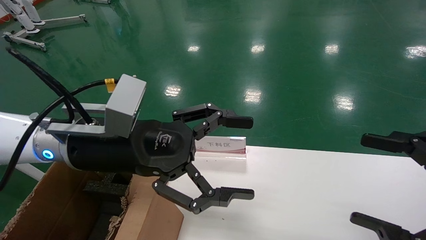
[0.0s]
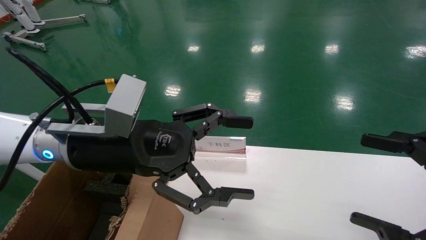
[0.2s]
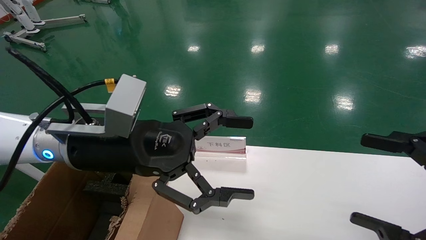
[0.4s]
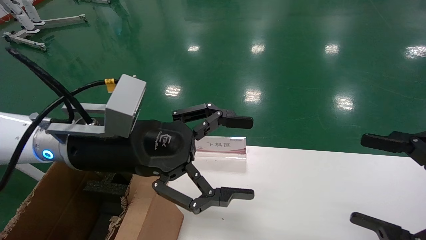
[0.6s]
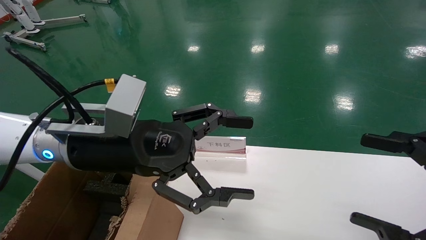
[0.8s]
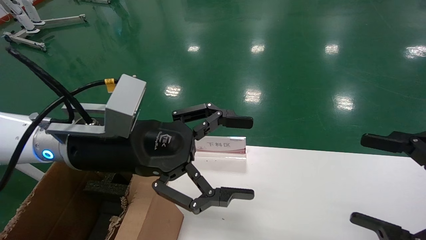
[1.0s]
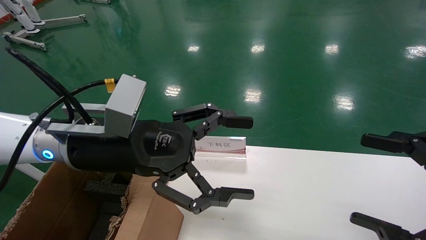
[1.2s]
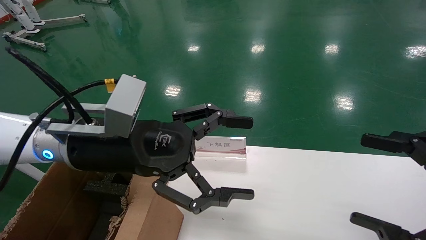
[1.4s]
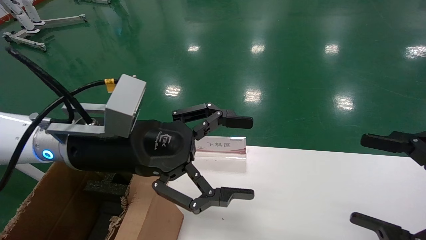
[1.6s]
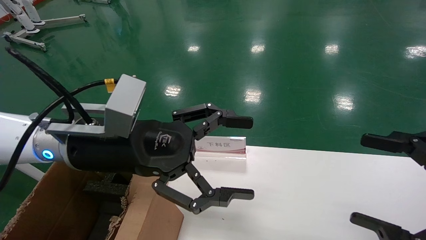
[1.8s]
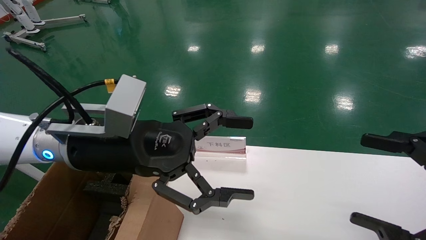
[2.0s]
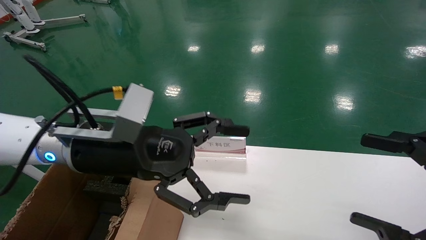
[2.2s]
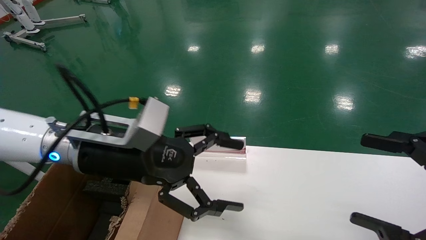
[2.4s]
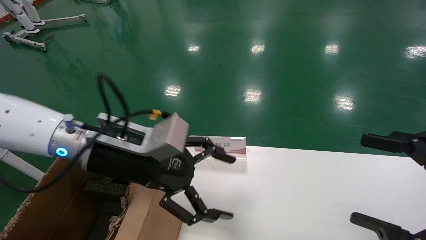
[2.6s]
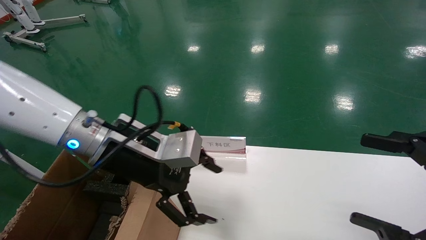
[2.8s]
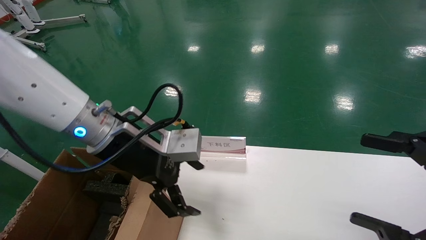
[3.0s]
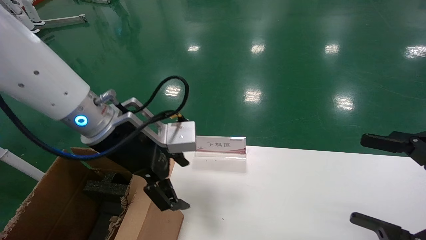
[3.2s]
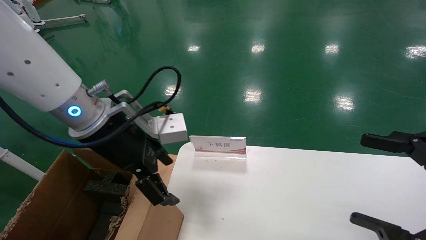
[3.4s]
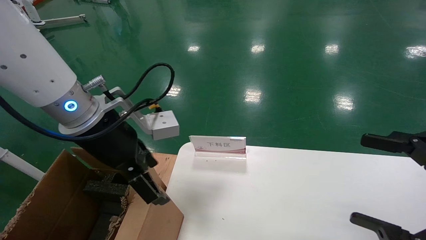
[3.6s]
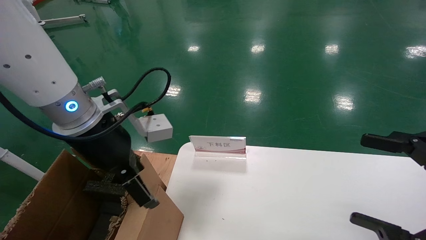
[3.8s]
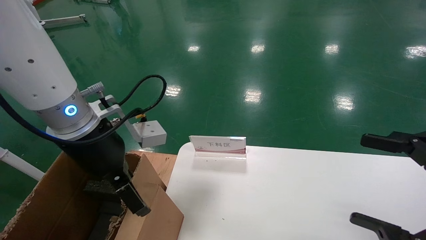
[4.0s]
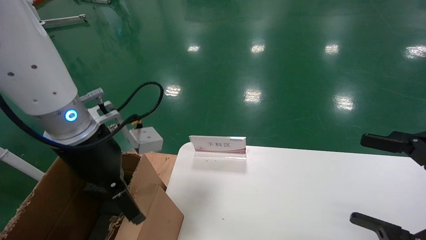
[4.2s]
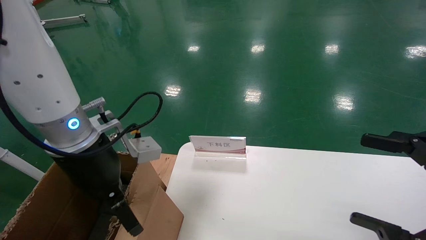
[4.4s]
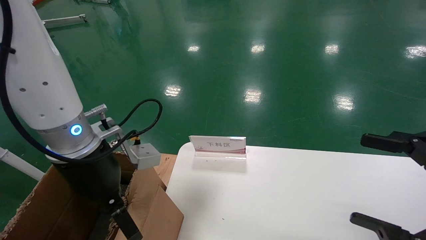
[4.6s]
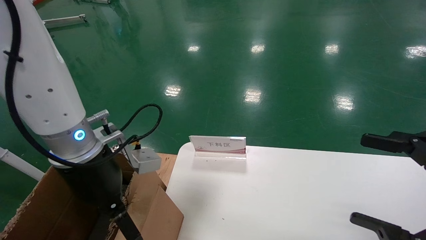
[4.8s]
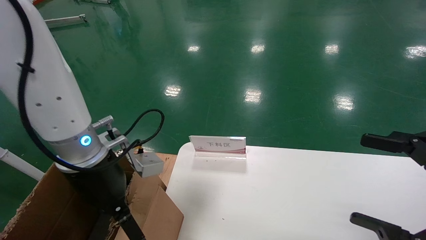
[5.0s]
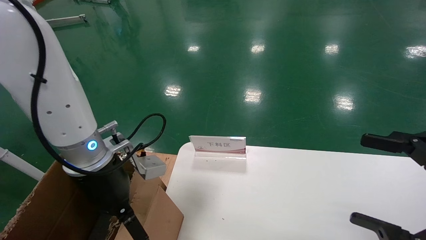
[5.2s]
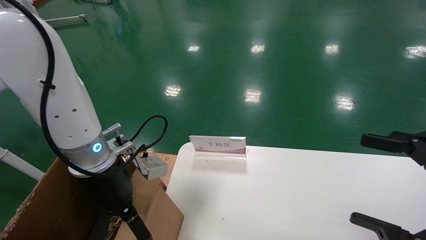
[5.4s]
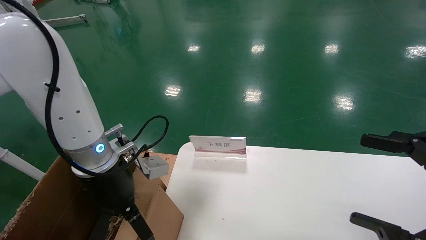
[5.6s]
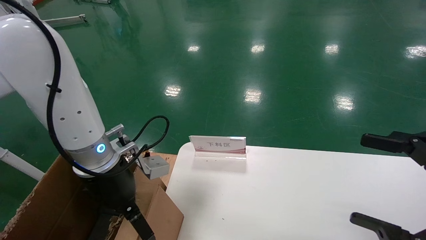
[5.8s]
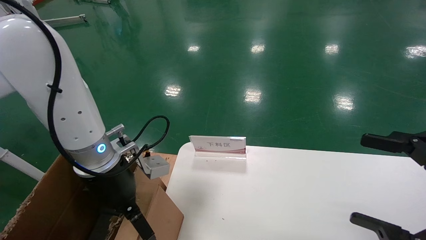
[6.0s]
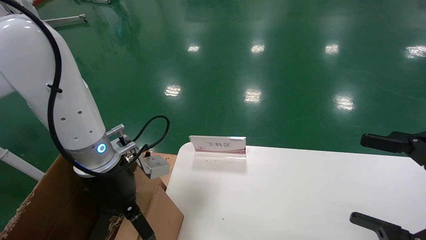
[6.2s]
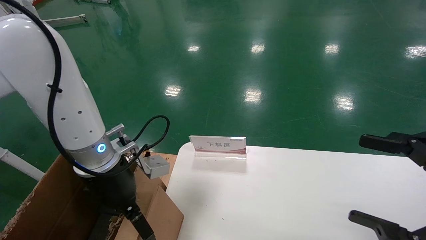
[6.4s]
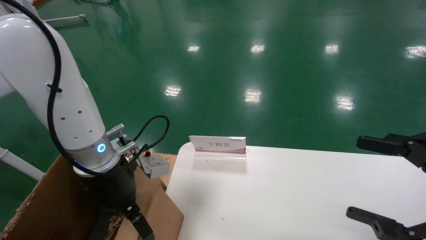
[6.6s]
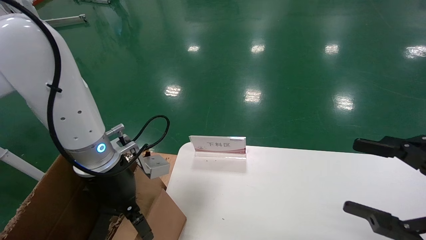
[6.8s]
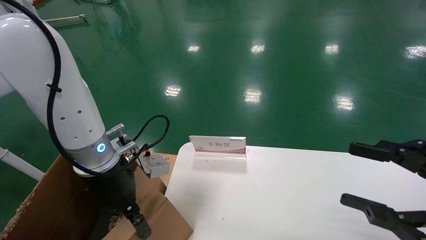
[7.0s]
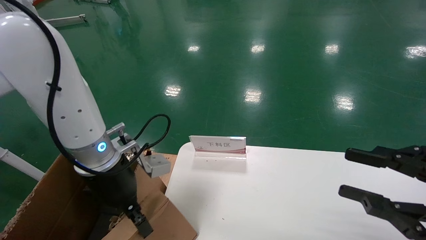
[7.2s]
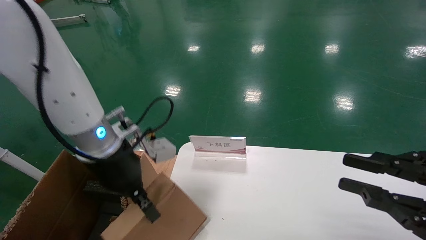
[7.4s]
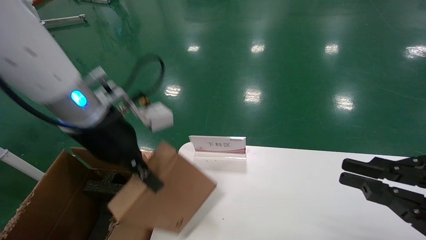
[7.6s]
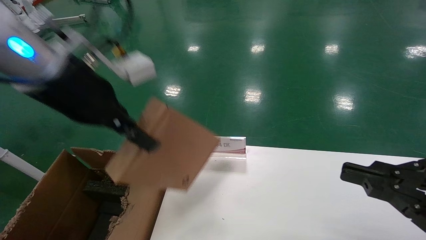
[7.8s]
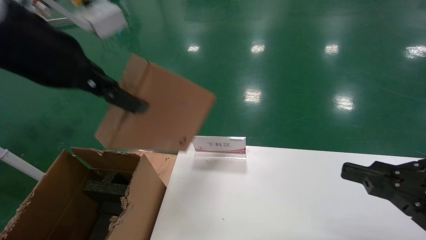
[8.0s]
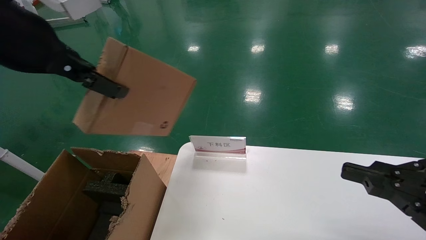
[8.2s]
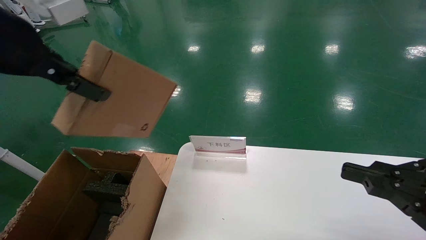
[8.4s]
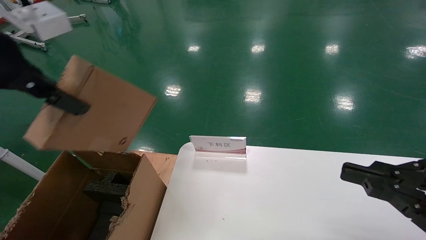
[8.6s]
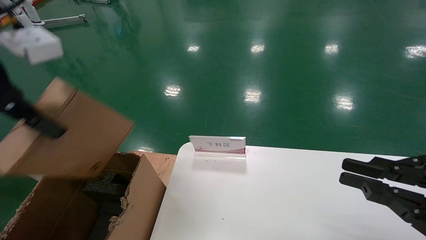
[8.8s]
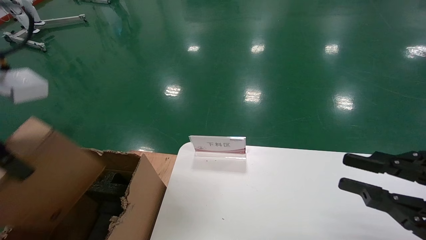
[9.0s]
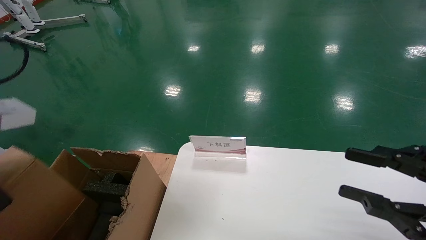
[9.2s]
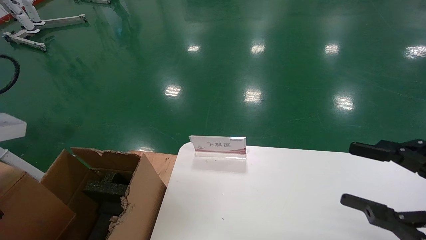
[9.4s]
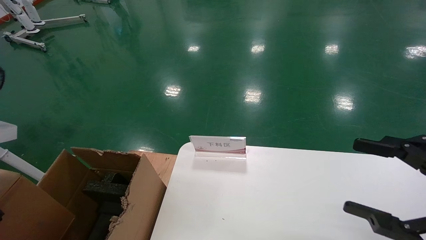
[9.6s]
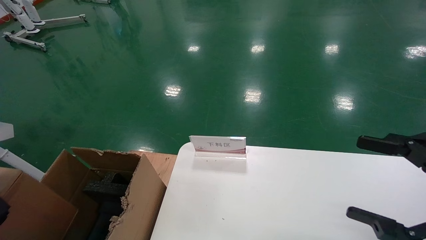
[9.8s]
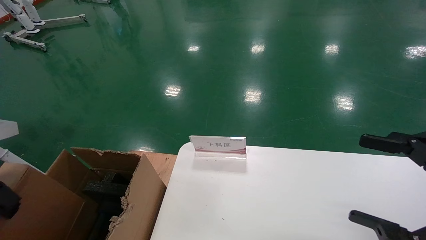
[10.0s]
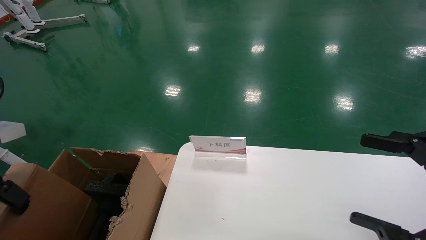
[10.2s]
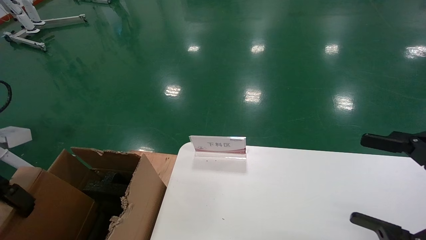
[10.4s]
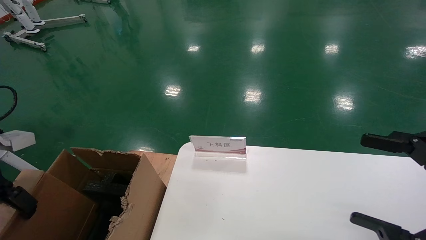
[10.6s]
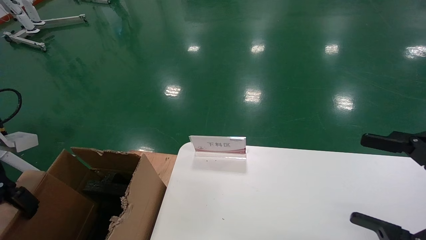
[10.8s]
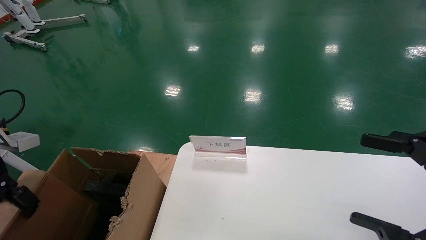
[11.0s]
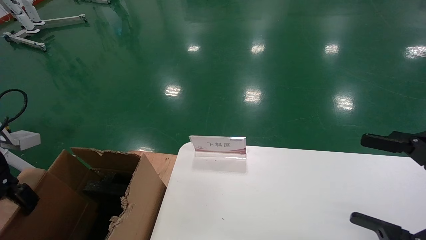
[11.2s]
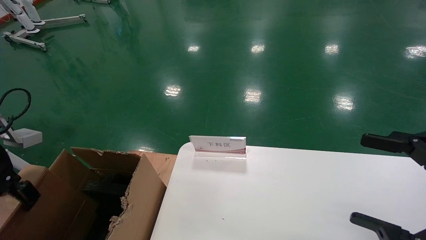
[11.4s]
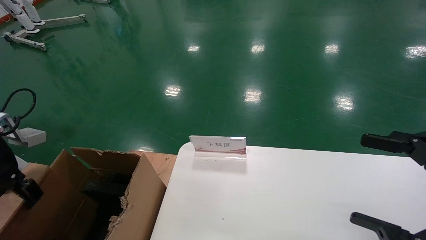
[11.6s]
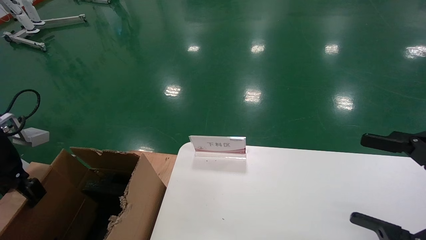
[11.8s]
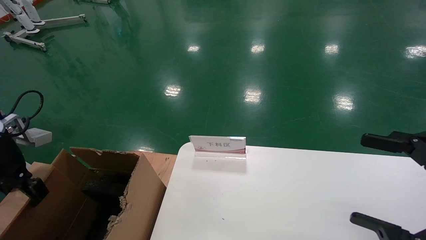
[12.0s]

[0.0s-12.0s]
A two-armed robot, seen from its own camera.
Task of the whole recording: pick up the small cardboard box and load it into the large cardboard box.
Step, 0.0s to 6.8s: Grasp the paper box.
0.0s to 1.6s: Both grippers stay put.
4.4s to 6.0s: The left gripper moves downward, approximately 5 cm.
6.0s to 7.6s: The left gripper is displaced upward by approximately 10 cm, and closes its fingers. The right gripper closes its fingers.
7.6s to 9.0s: The left gripper moves backward, to the left and upward, about 15 cm.
9.0s to 10.4s: The right gripper opens, while the left gripper goes roughly 15 cm to the left and downward.
10.4s to 12.0s: The left gripper shifts roughly 5 cm forward.

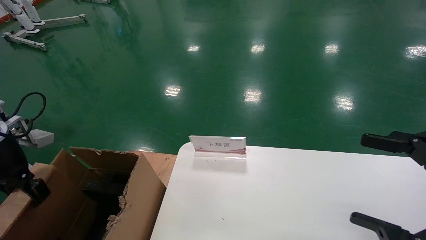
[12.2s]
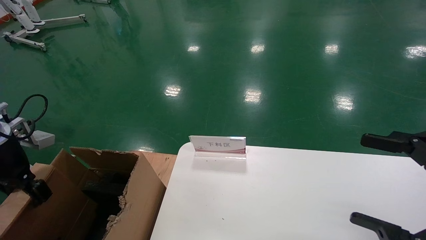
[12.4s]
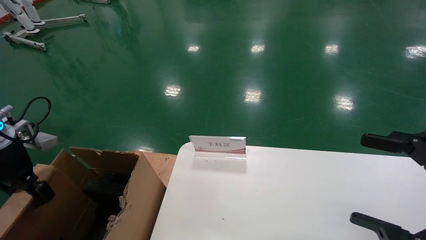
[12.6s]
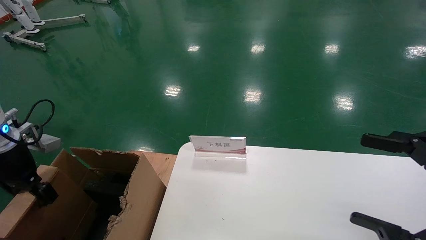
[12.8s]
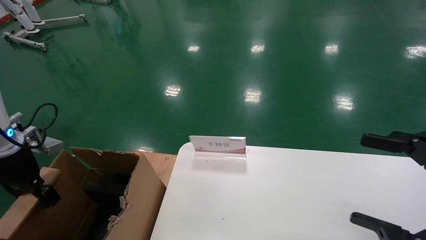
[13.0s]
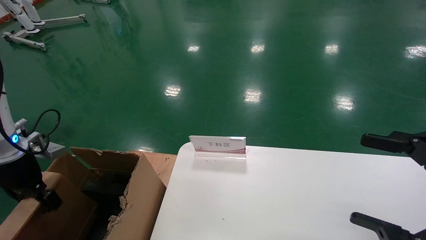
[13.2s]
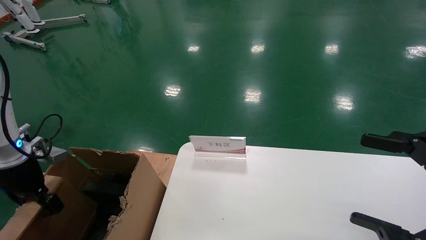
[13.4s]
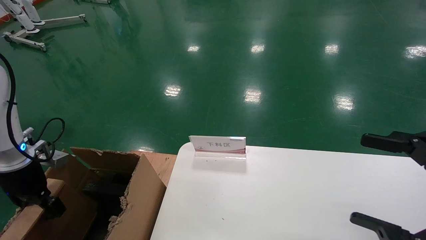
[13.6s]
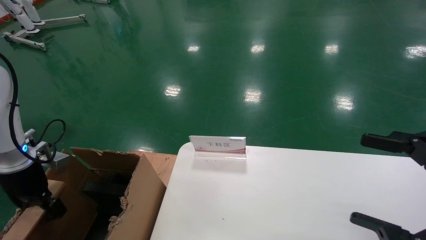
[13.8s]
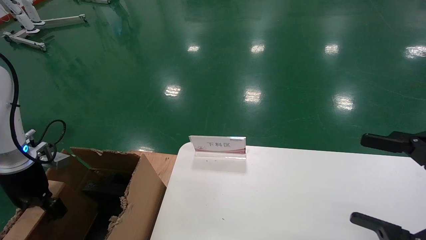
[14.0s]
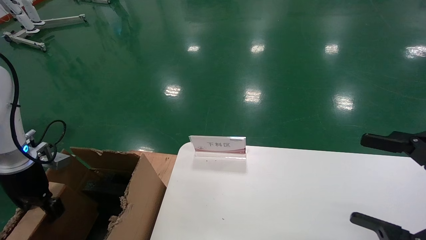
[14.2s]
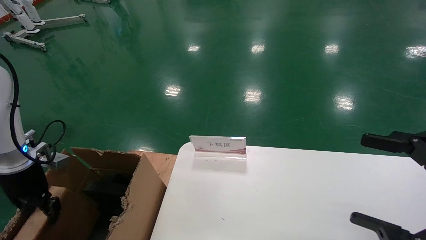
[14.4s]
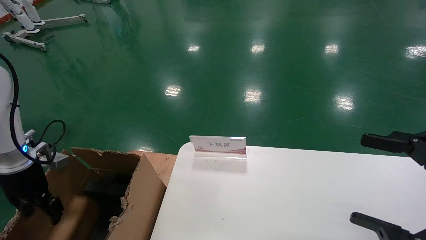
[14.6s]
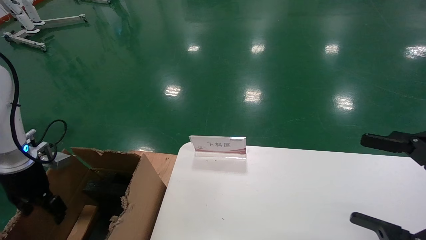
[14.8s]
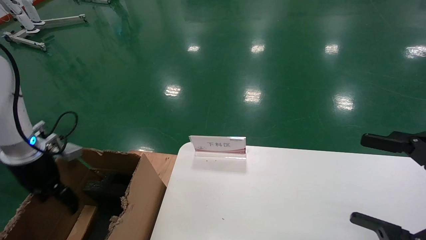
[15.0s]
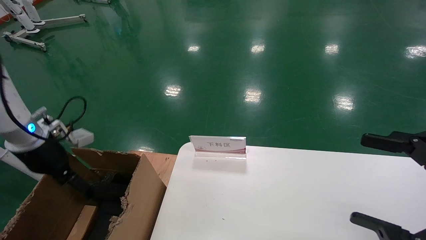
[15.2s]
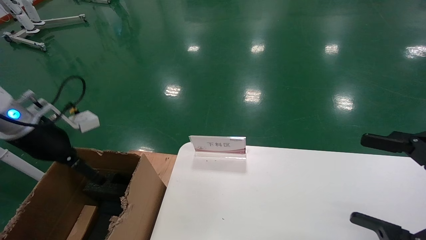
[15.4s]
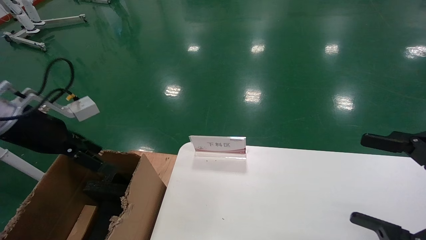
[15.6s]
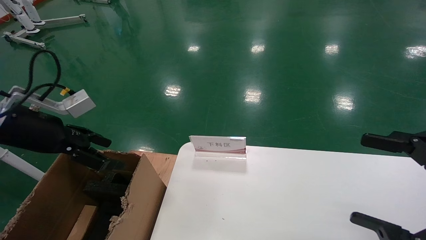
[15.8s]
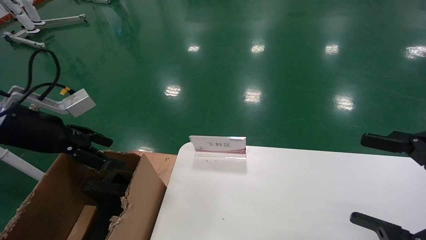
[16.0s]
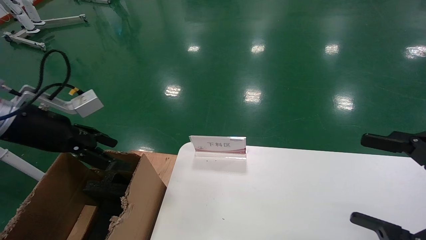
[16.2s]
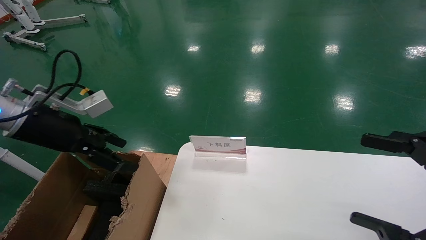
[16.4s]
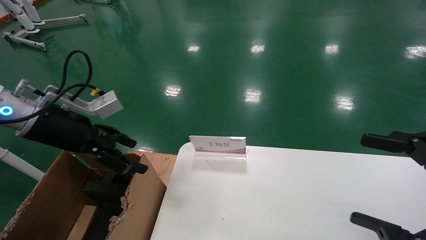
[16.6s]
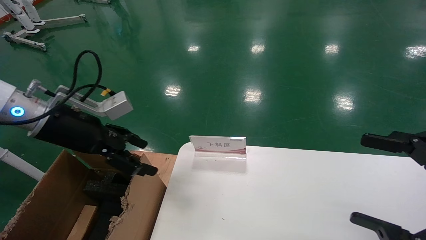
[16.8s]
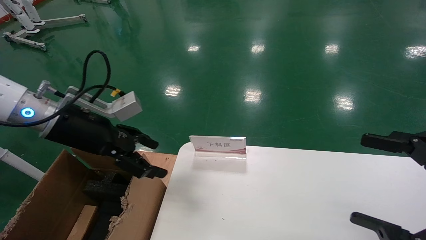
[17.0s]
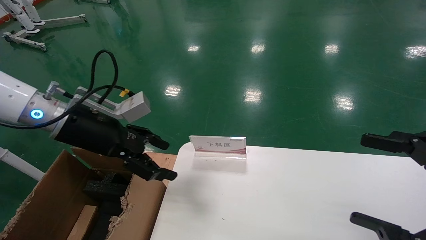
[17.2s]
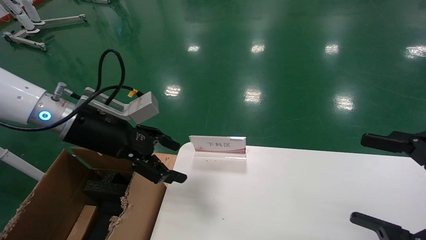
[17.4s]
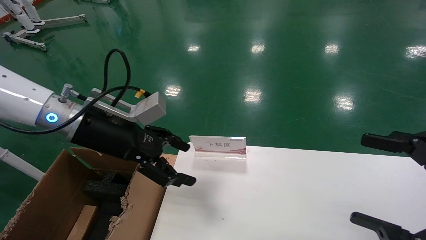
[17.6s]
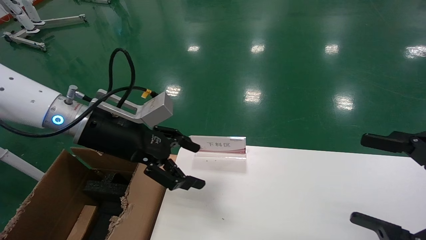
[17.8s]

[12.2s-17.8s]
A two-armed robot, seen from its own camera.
Task of the whole recording: pick up the small cardboard box and load it into the large cardboard box.
Step, 12.2s to 14.8s: Place the paper box in the another big box.
12.2s to 13.6s: The left gripper goes some 5 cm downward.
13.6s to 15.0s: The left gripper opens.
15.0s to 16.4s: The left gripper moves upward and to the right, some 10 cm.
16.4s to 17.8s: The left gripper travels to the right by about 10 cm.
